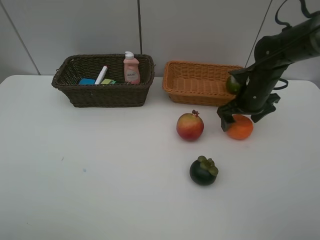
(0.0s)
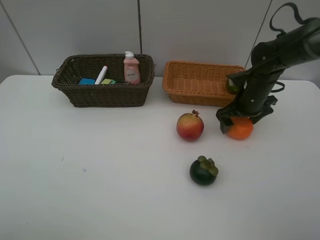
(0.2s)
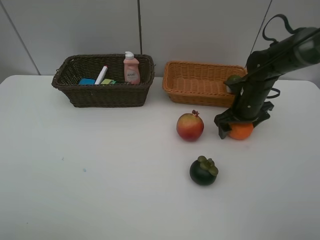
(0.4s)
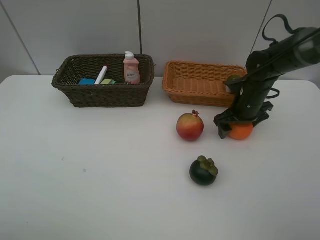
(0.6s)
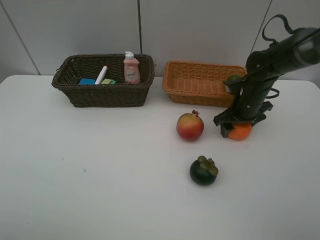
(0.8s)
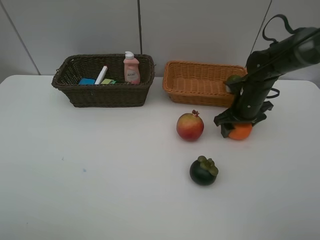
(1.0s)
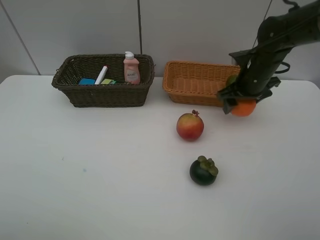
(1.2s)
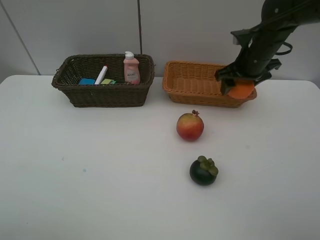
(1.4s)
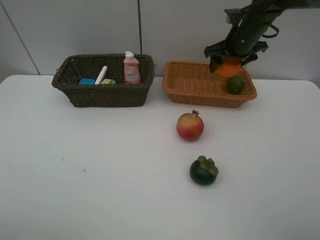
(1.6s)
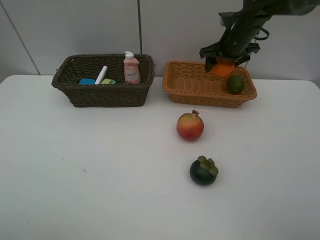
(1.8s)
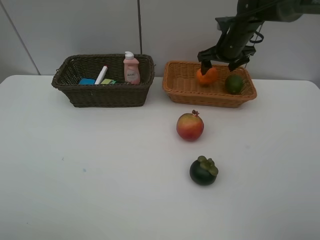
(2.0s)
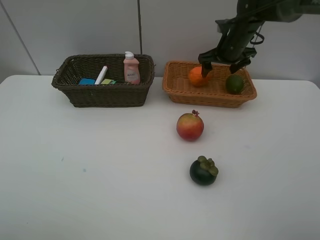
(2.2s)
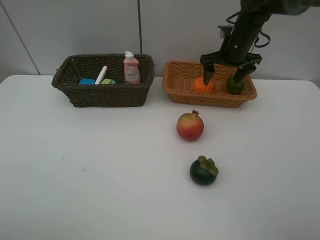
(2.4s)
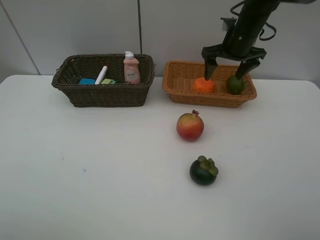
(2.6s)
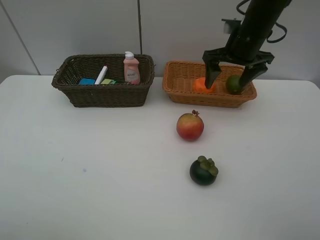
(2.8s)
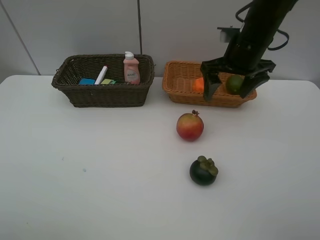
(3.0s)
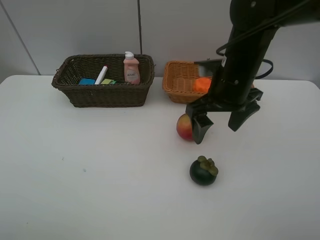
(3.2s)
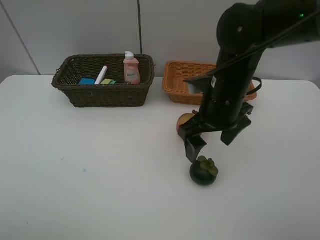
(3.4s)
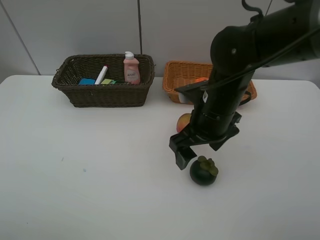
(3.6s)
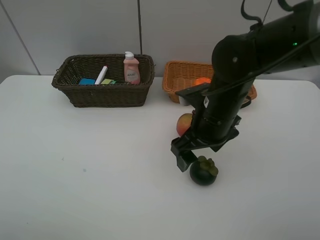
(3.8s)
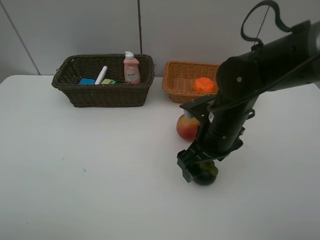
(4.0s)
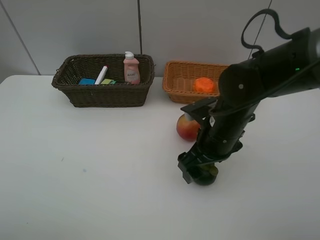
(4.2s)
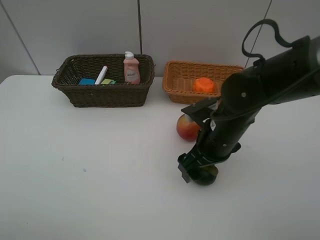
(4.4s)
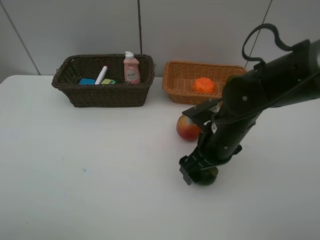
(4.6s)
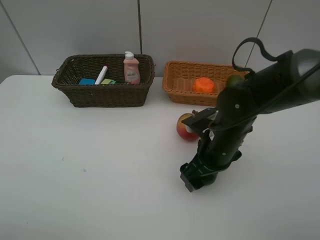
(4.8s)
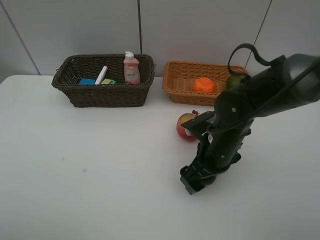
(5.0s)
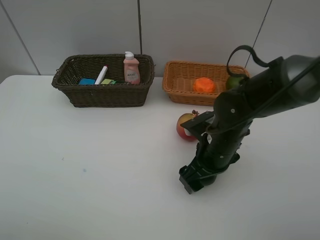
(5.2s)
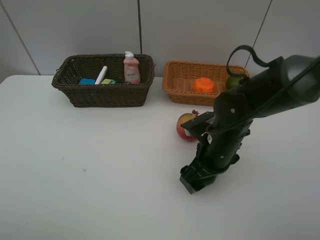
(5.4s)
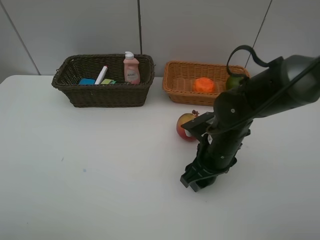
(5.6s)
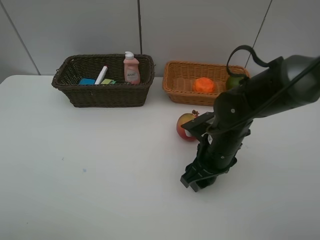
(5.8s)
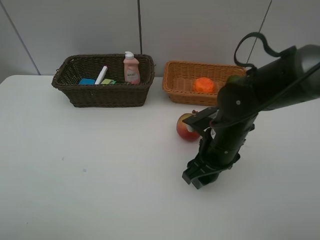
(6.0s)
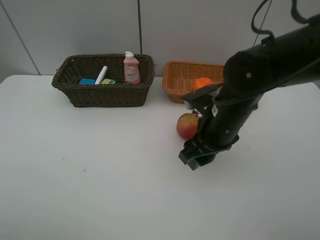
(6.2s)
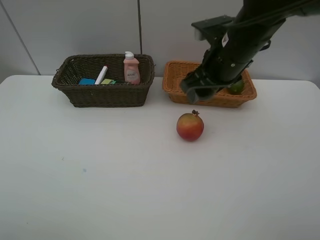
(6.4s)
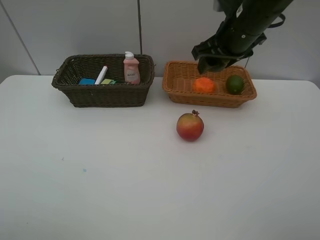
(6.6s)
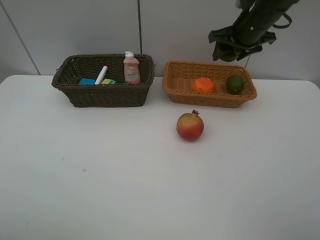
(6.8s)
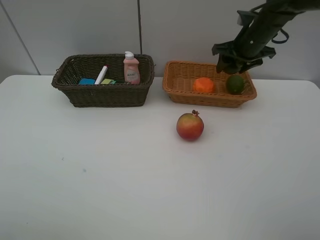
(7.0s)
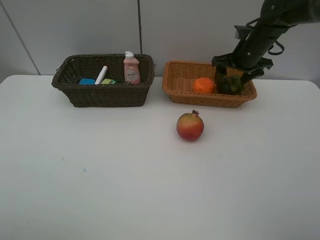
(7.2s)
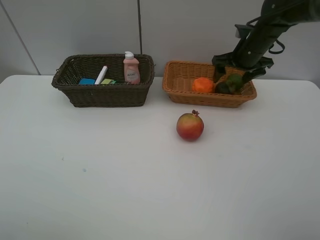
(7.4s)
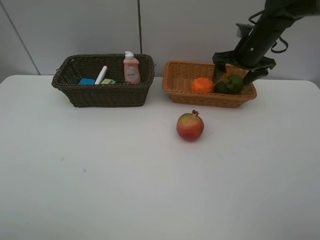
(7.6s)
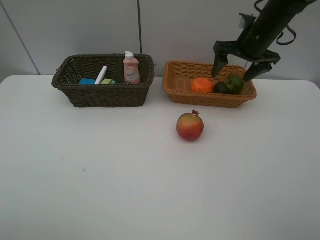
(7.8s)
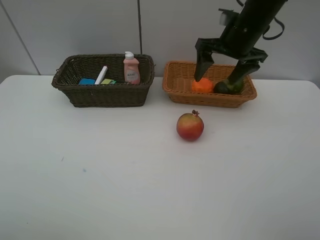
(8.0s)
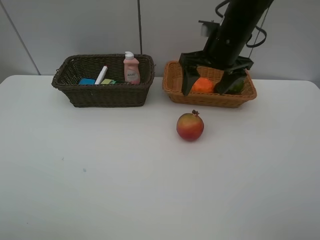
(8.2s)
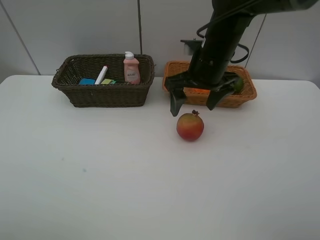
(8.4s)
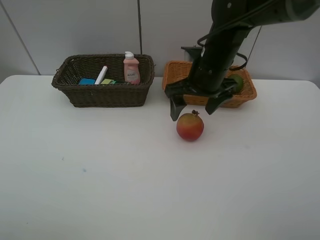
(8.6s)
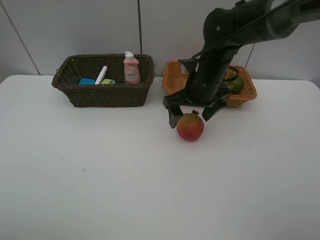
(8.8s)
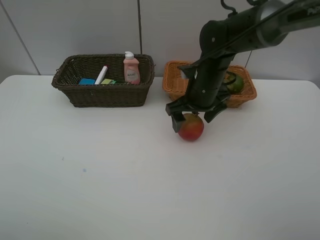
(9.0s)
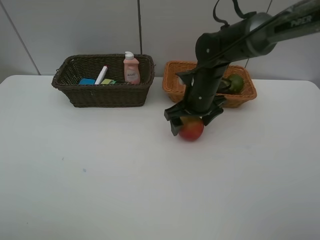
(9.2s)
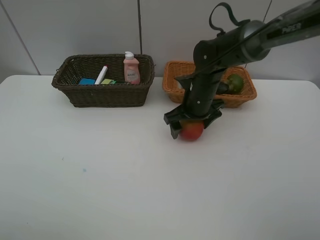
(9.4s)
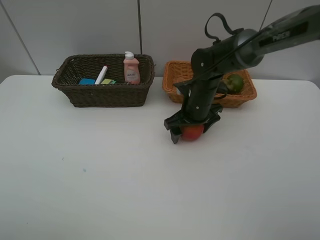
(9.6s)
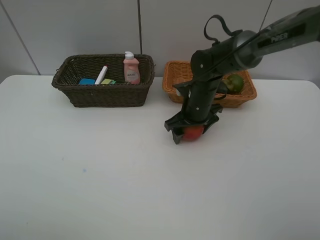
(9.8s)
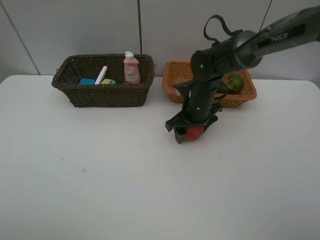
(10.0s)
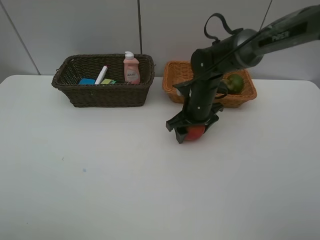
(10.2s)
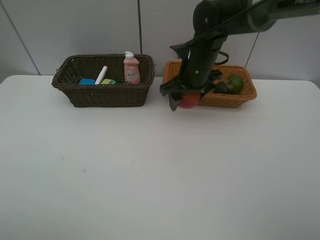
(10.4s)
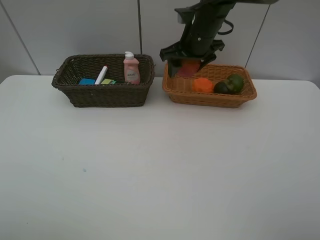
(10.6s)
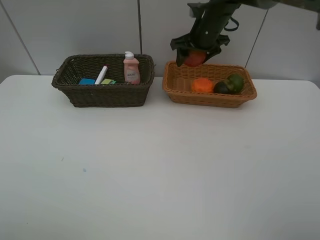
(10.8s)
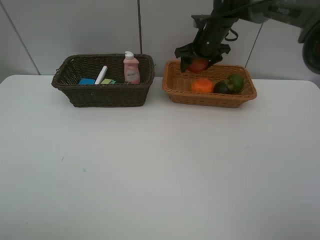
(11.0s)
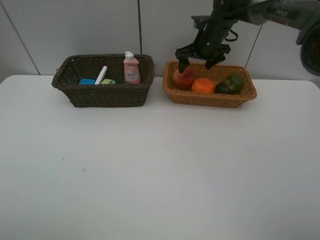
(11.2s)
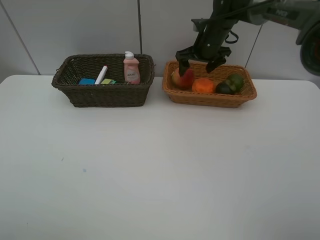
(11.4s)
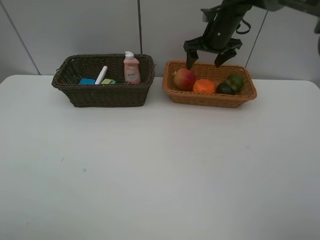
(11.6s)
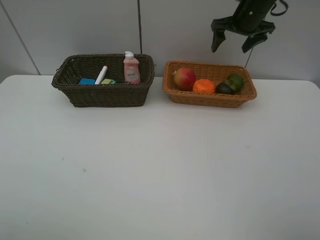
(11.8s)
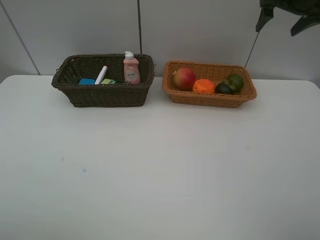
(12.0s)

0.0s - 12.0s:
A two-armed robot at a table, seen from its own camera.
Task of the whole recording: Place multiple objects separately in different baskets.
Step, 1.2s - 2.2s: Place the orange in the light basket with right gripper.
Step, 2.4s - 6.0s: Pick up the mangosteen with right gripper.
Step, 6.2s - 7.6s: Place the mangosteen in the light basket with right gripper.
Step, 7.8s - 10.2s: Pick up the pomegranate with right gripper.
Step, 10.4s - 11.4s: Place the pomegranate in the light basket with right gripper.
0.0s - 1.6s: The right gripper travels forward and upward by roughly 15 cm, and closes.
1.6s - 3.0s: The right gripper shifts roughly 10 cm backward, and opens.
3.0s - 4.4s: The right gripper moves downward and backward, some 15 cm.
4.4s - 6.0s: The right gripper closes up.
6.0s - 7.6s: The right gripper heads forward, to the right and upward, covering roughly 25 cm, and opens.
7.6s - 9.0s: The right gripper heads to the left, backward and downward, covering roughly 15 cm.
9.0s - 10.4s: The right gripper moves roughly 5 cm, and closes.
10.4s - 12.0s: The right gripper goes approximately 25 cm to the right and upward, and opens.

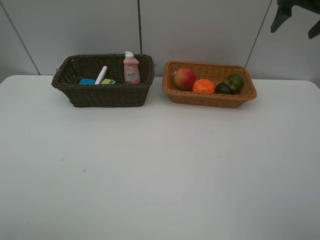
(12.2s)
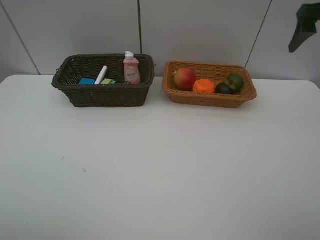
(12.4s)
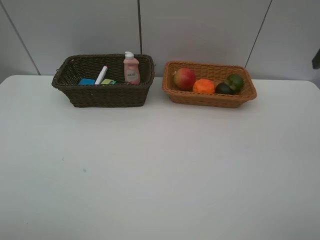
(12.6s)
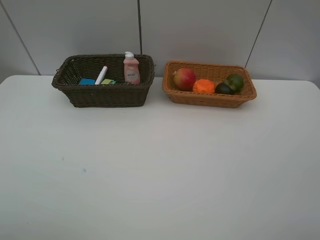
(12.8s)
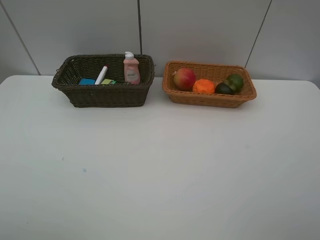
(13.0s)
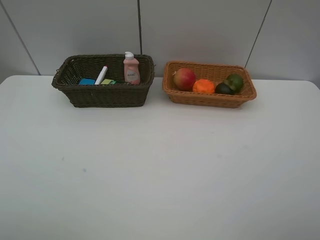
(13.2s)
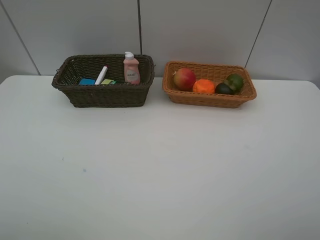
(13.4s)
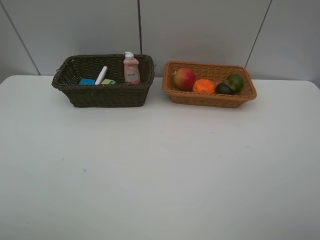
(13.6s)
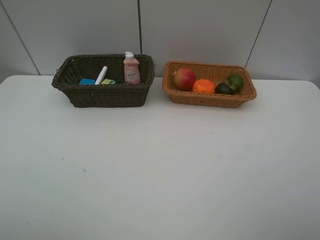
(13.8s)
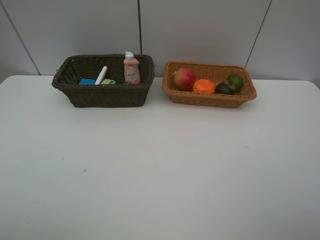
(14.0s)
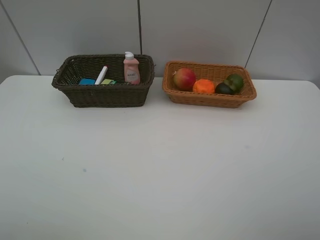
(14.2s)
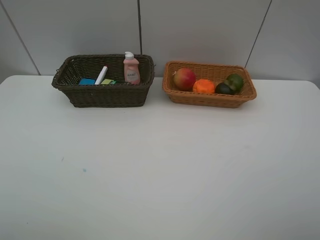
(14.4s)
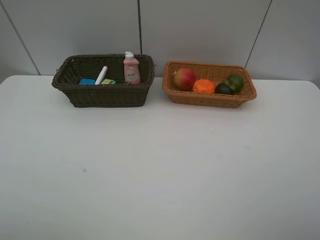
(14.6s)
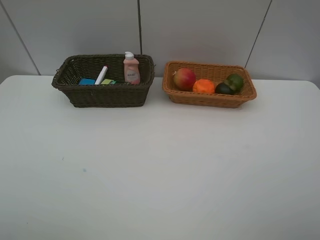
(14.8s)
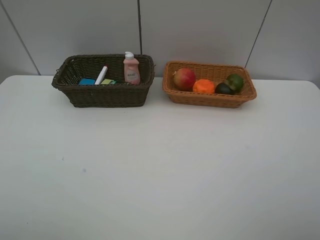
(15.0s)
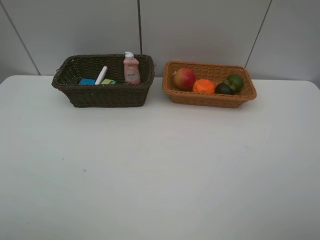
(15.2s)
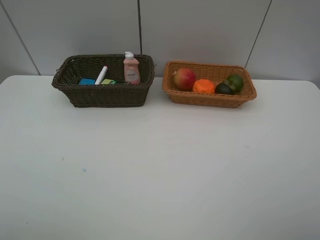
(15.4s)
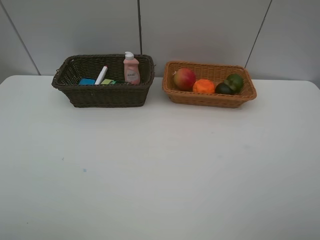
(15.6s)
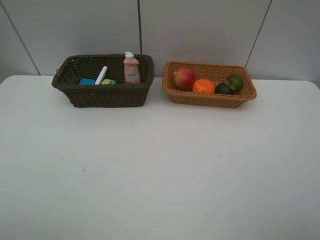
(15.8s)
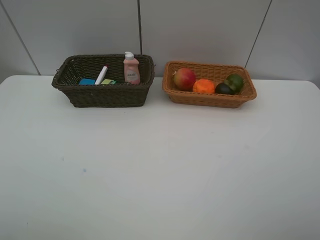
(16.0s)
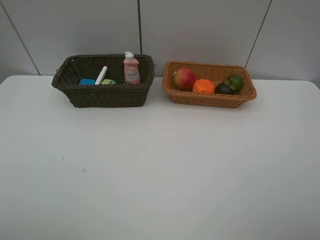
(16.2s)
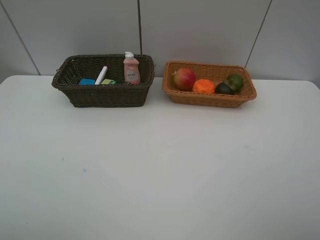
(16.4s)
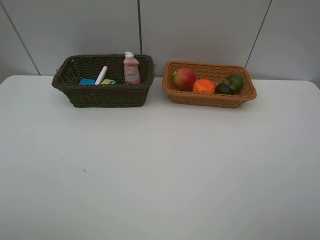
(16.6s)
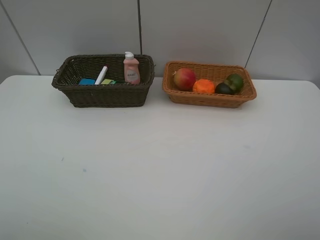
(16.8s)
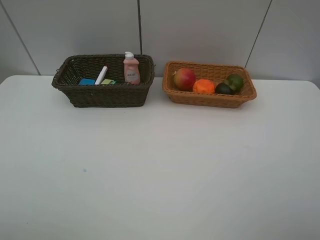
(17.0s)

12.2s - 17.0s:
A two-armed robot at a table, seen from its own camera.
Task of the whole recording: Place multiple objects separately in different baskets.
12.2s - 13.8s: The right gripper shifts about 40 cm backward.
13.8s - 17.0s: The two grippers keep their place.
